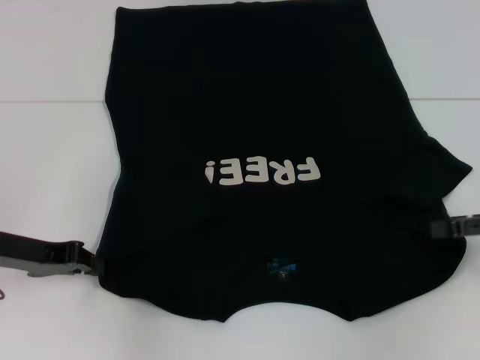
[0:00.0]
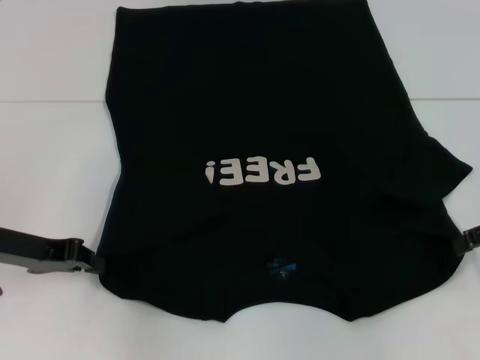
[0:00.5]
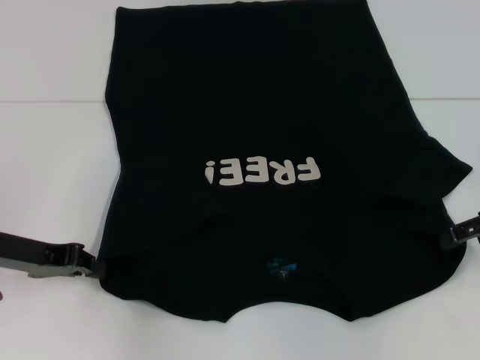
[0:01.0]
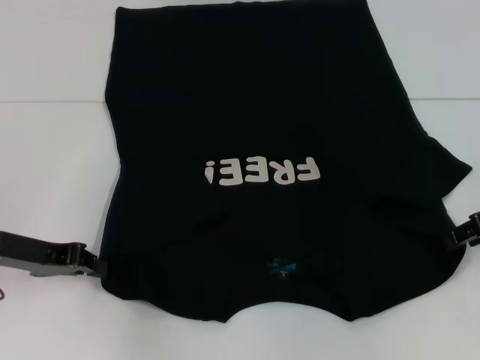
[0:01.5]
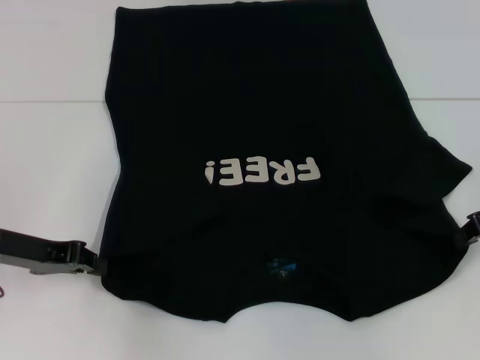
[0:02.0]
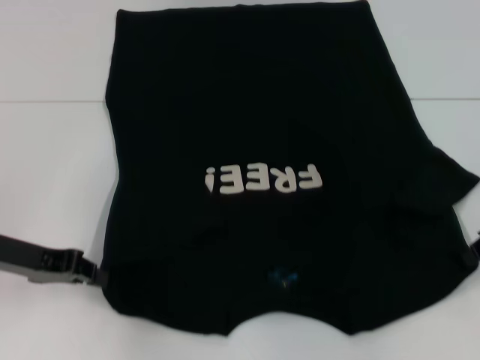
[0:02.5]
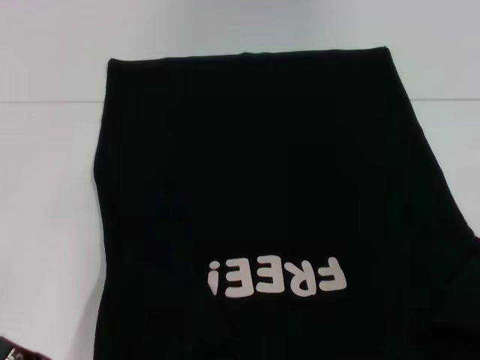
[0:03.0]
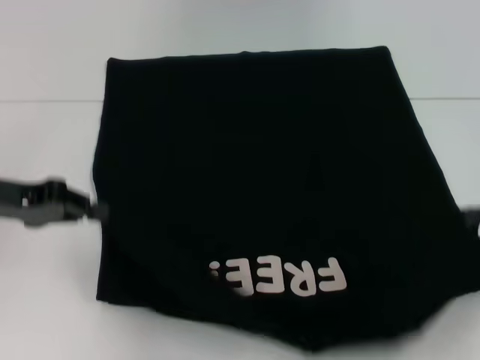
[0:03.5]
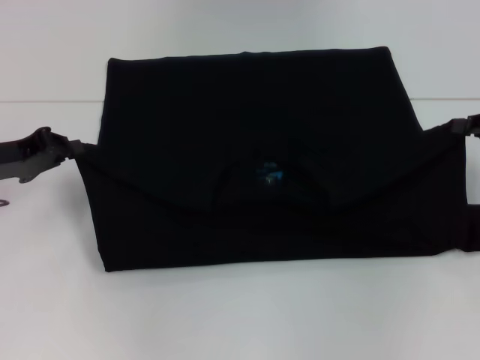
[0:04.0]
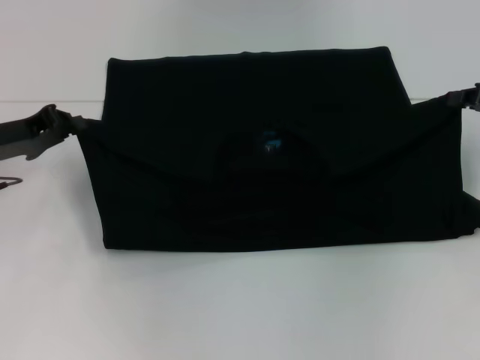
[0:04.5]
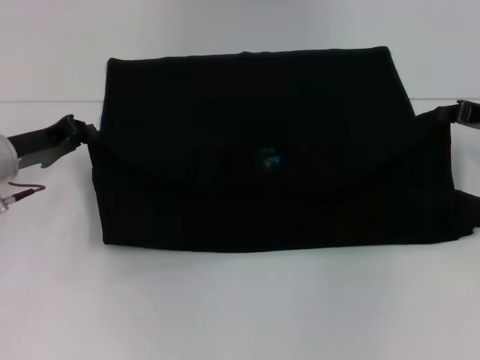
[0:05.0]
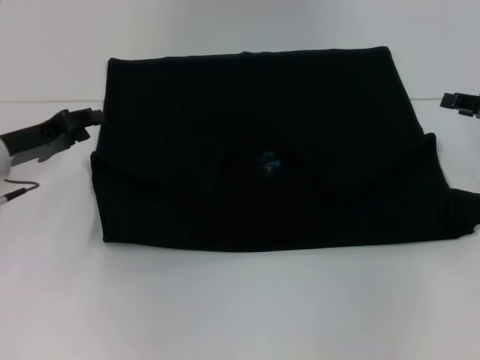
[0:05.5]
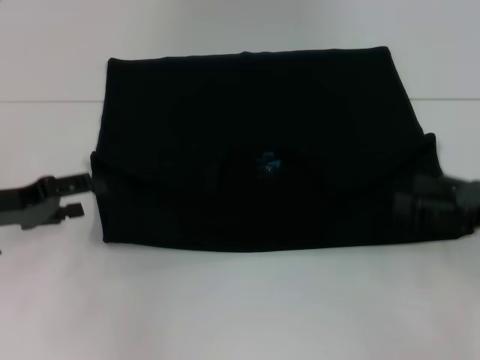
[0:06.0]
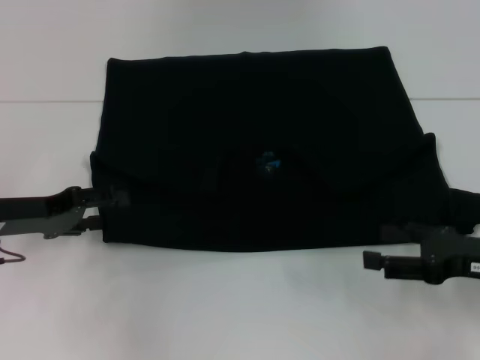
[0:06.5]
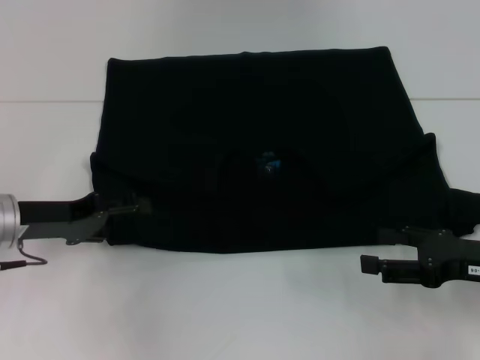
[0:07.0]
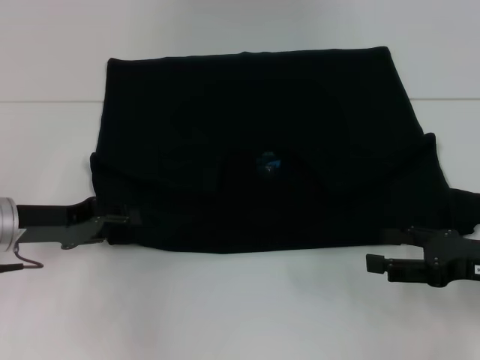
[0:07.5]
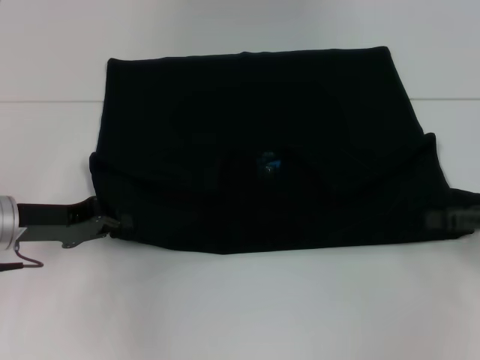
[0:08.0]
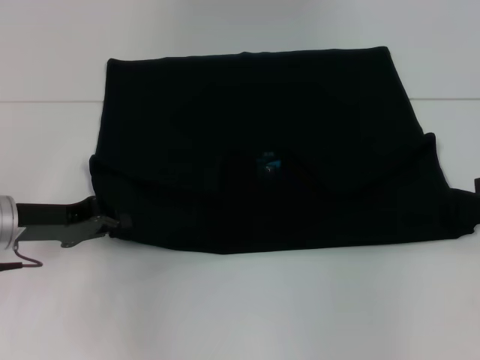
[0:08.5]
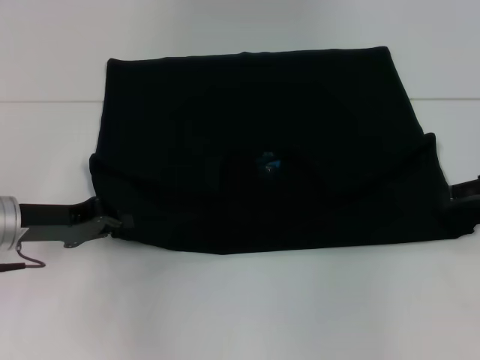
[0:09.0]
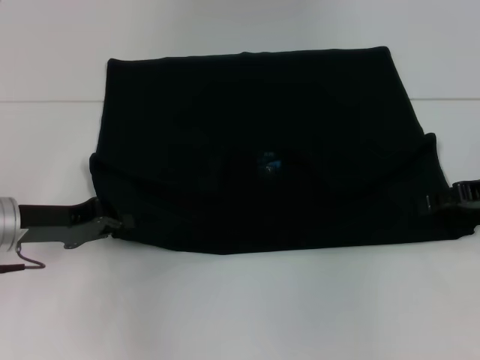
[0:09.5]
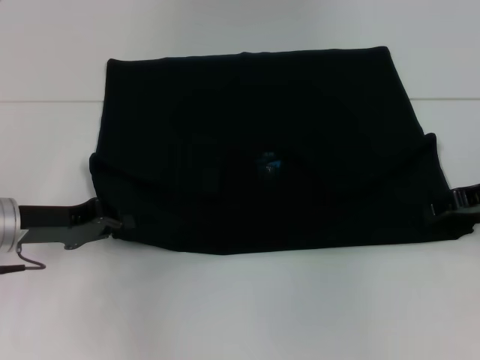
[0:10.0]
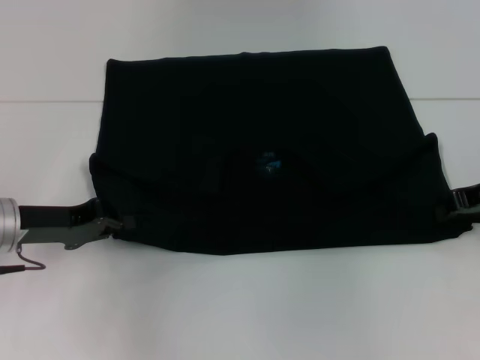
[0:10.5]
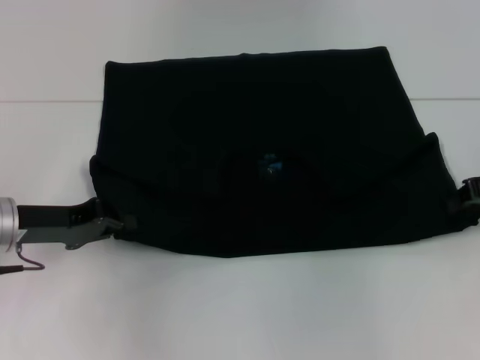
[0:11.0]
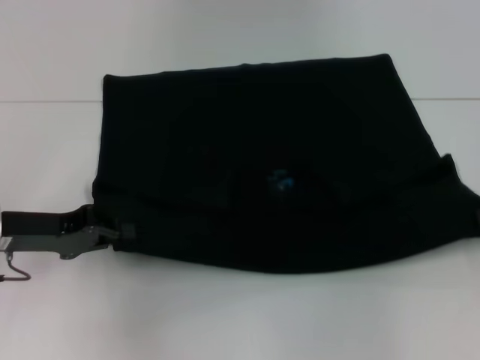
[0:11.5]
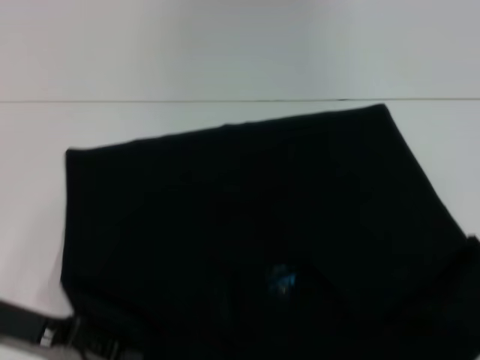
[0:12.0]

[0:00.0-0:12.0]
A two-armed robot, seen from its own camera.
Step, 0.5 to 2.0 s: Grab the bottom right corner with your right hand.
Step, 2.5 to 5.0 s: Fold the clothes with your left hand.
Step, 2.5 to 5.0 s: Fold the clothes with your right hand.
Step, 5.5 to 12.0 s: Pull the clothes with your left hand.
Step, 5.5 to 12.0 s: Pull the clothes with your right hand.
0.0 to 2.0 s: The right gripper goes about 5 cm forward, and closes its fingers.
2.0 to 4.0 s: The right gripper reaches approximately 10 cm backward, then returns.
4.0 to 6.0 s: The left gripper opens its fingers, while the right gripper travels backward by some 10 cm, and opens its fingers.
6.0 to 8.0 s: The left gripper closes its fingers.
8.0 to 10.0 s: The right gripper shifts approximately 10 cm forward.
10.0 to 12.0 s: The left gripper shifts roughly 5 cm backward; the right gripper goes some 10 cm backward and to the right, and closes up.

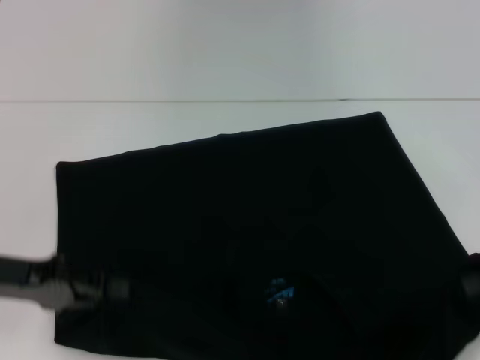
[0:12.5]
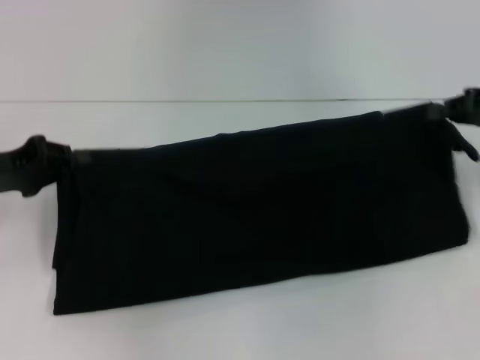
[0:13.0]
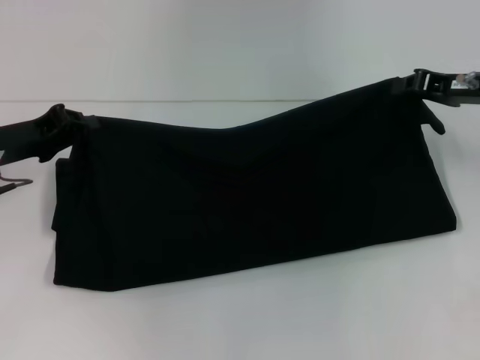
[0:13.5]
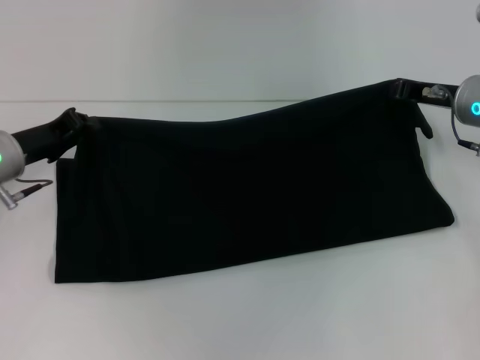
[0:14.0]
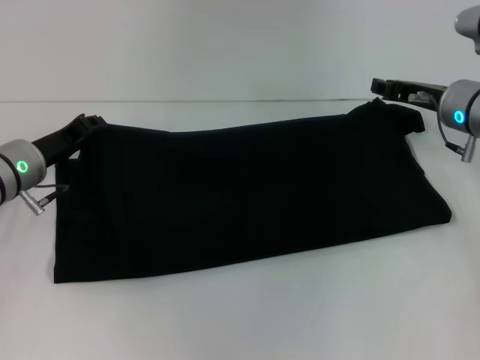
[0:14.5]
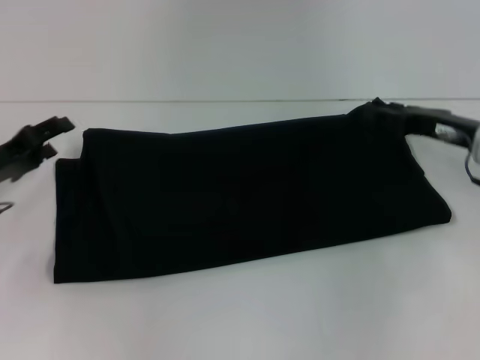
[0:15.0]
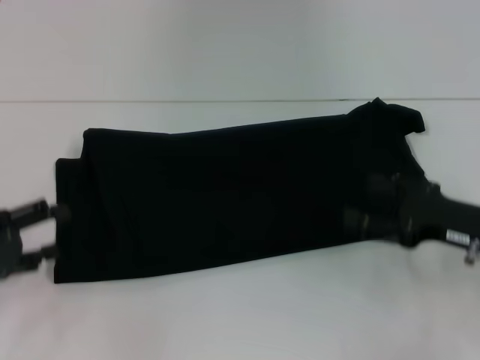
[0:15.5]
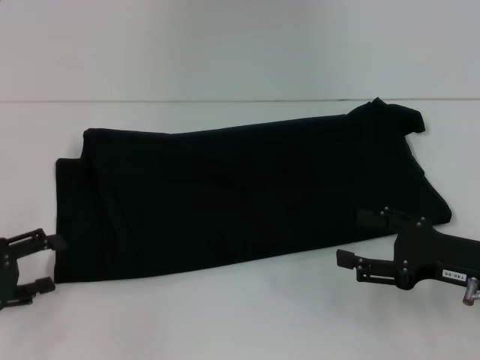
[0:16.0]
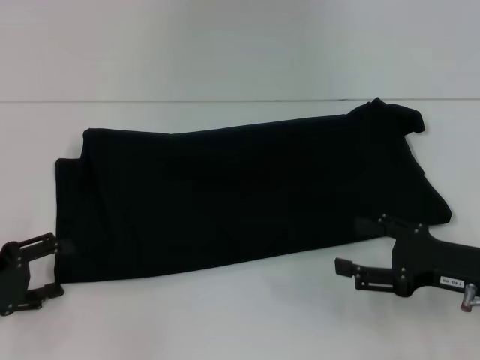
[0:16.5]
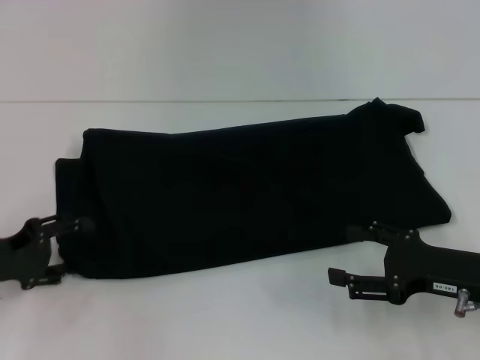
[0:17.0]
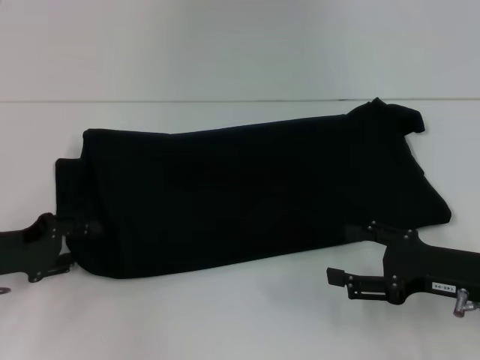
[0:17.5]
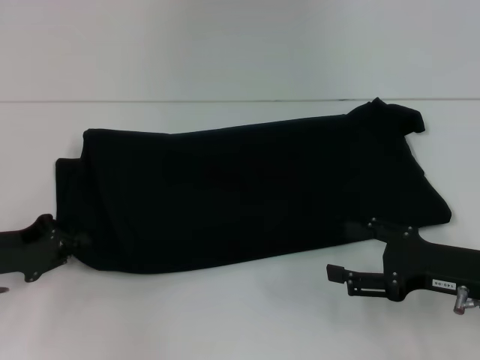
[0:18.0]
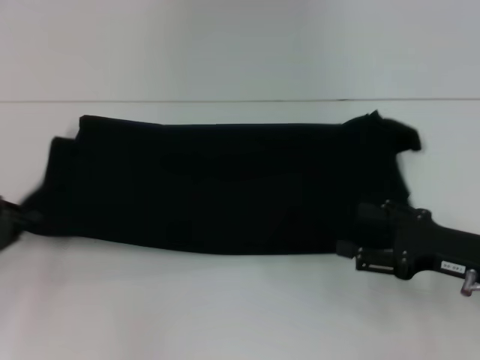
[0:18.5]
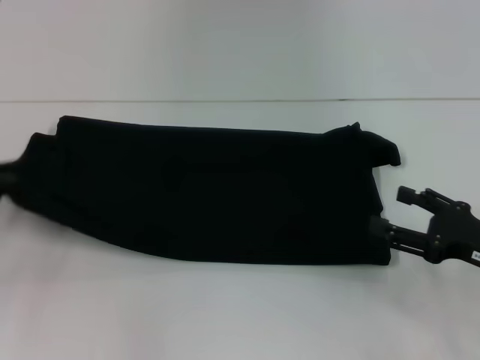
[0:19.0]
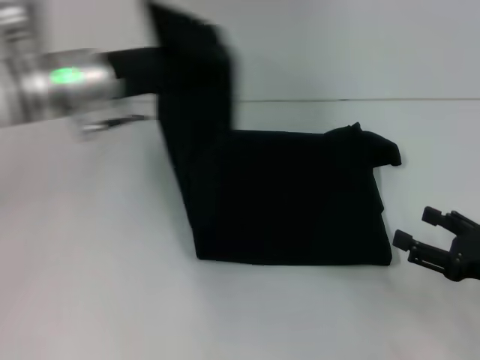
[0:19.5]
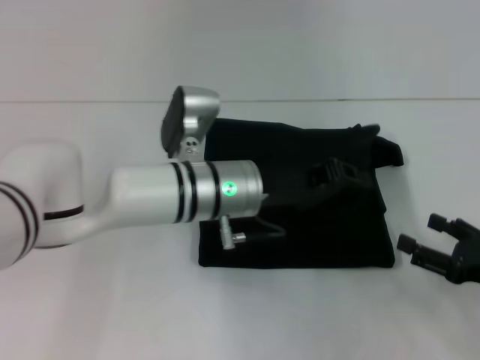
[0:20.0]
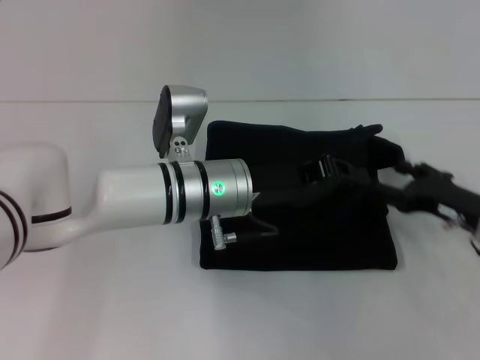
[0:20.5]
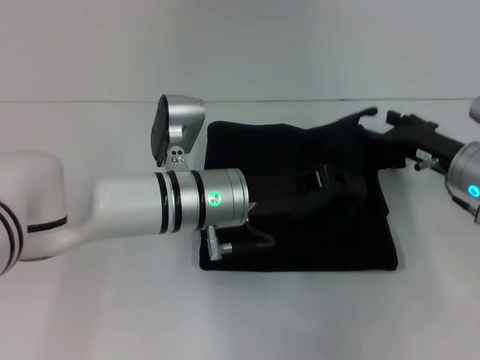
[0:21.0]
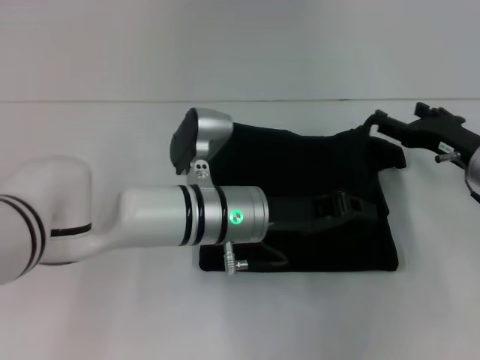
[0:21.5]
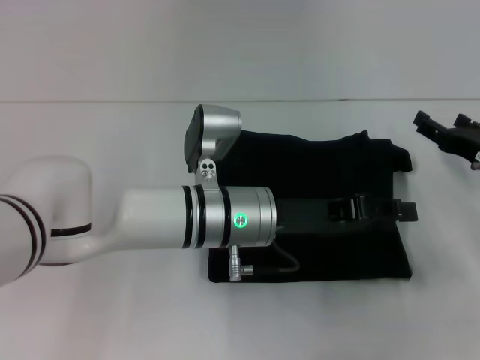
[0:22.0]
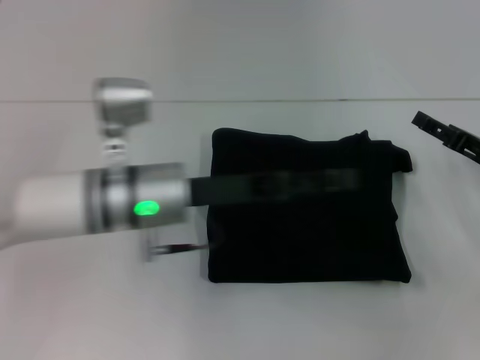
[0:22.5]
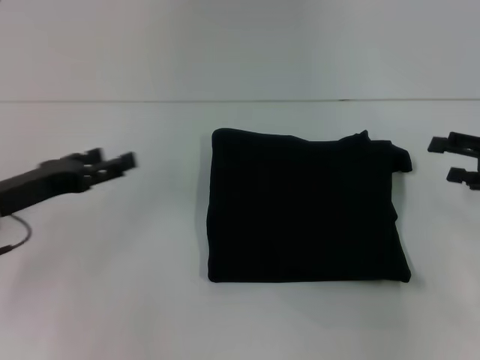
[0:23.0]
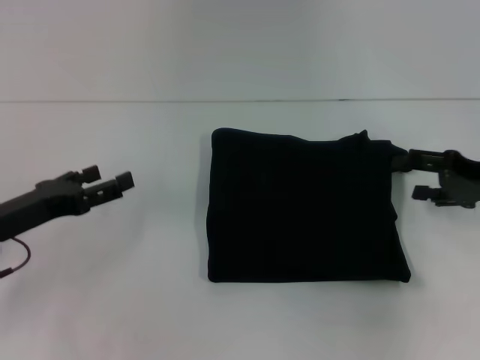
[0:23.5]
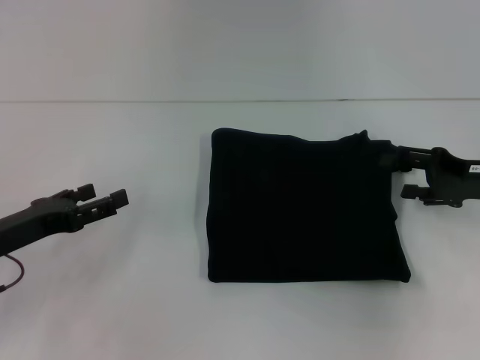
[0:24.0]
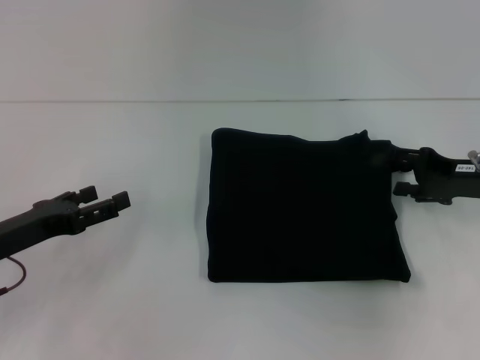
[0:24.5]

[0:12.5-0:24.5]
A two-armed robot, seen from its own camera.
Step, 12.5 to 14.5 s: Fold the clothes with your right hand.
Step, 12.5 to 22.0 s: Fold the clothes with your left hand.
12.5 to 14.5 s: The left gripper shifts about 10 cm forward. Meanwhile the right gripper moves forward and to the left, approximately 20 cm.
14.5 to 16.5 s: The left gripper heads backward and to the left, covering some 15 cm, and opens. Meanwhile the right gripper heads backward, covering about 15 cm, and opens its fingers.
16.5 to 18.5 s: The left gripper closes up.
18.5 to 20.5 s: The left gripper travels to the right by about 30 cm.
20.5 to 22.5 s: The left gripper shifts by approximately 5 cm, and opens up.
22.5 to 24.5 s: The left gripper shifts some 20 cm to the left.

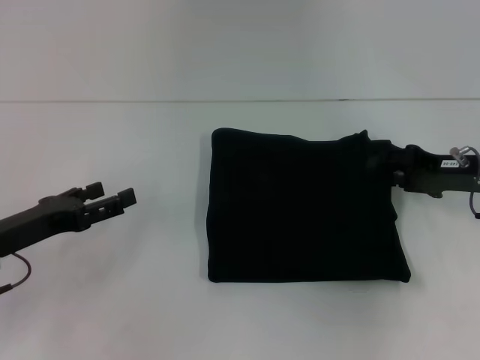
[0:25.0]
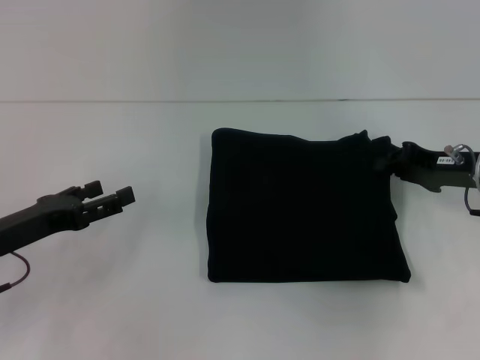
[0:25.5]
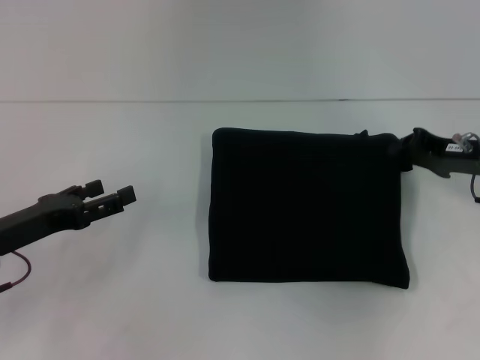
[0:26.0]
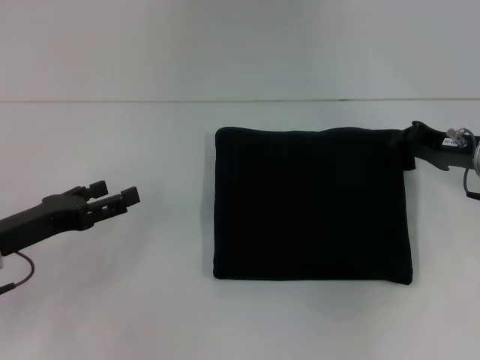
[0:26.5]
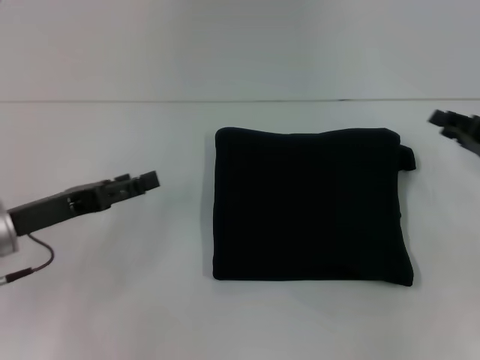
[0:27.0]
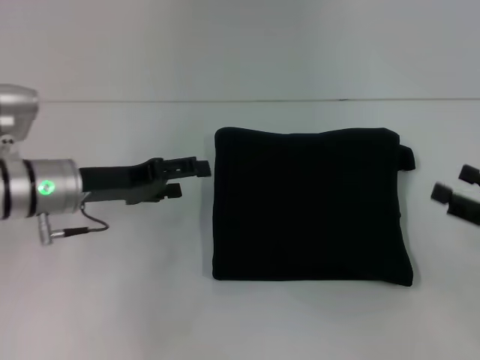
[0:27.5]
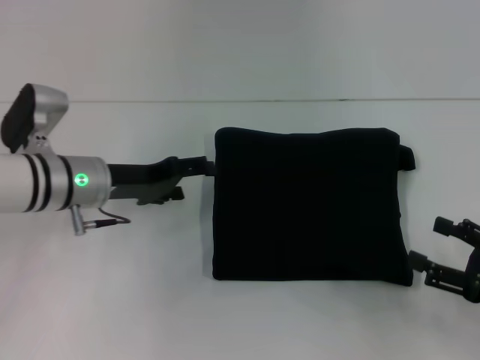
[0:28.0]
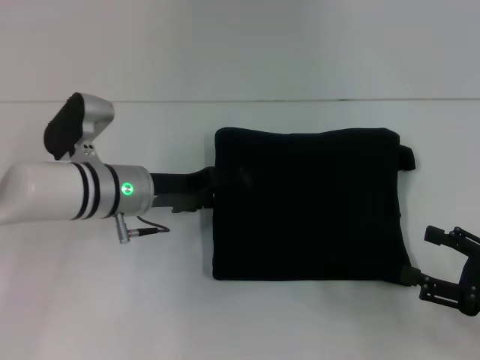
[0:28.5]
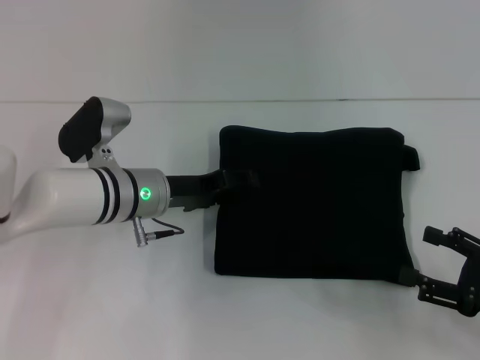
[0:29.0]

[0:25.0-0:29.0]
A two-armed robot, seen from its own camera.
25.0 to 27.0 s: The right gripper changes place by roughly 5 cm, and closes.
27.0 to 29.0 s: The left gripper is displaced to the right and forward by about 15 cm. The right gripper travels backward by about 15 cm, and opens up.
